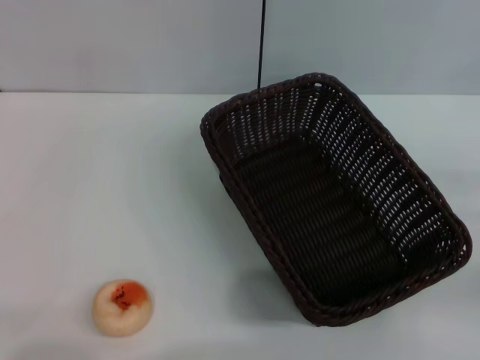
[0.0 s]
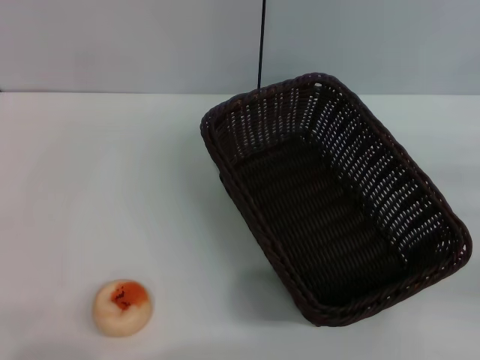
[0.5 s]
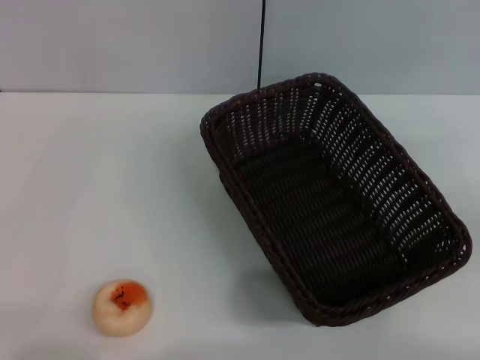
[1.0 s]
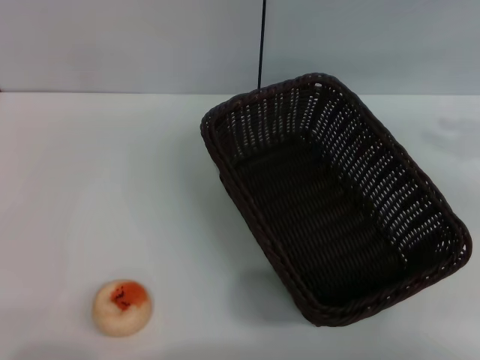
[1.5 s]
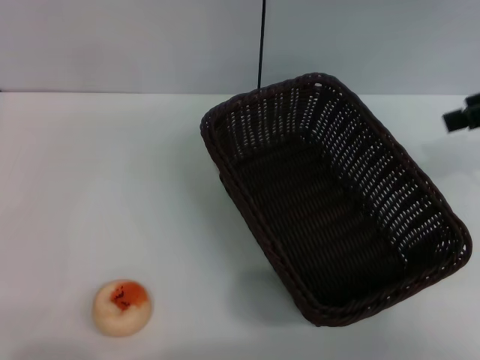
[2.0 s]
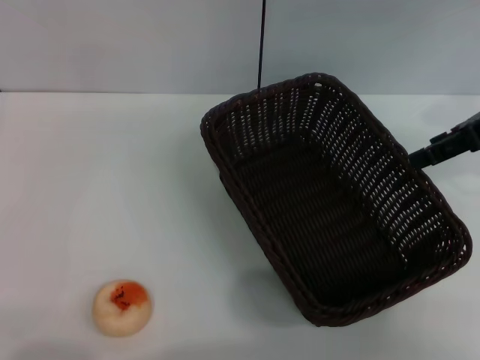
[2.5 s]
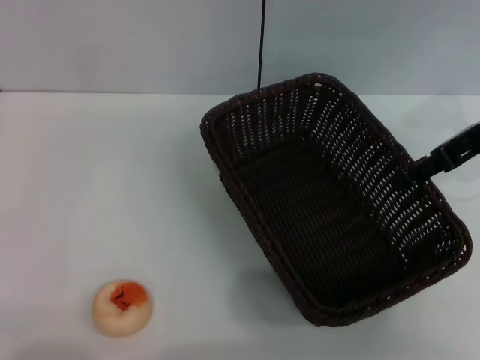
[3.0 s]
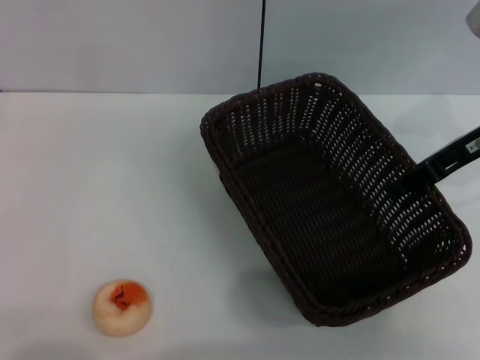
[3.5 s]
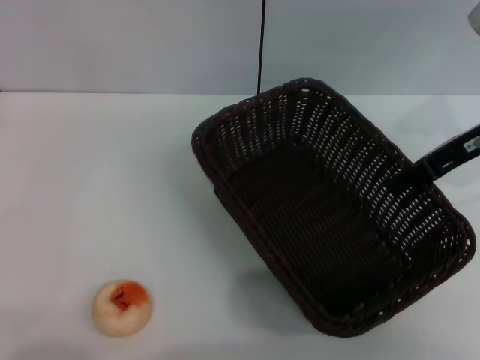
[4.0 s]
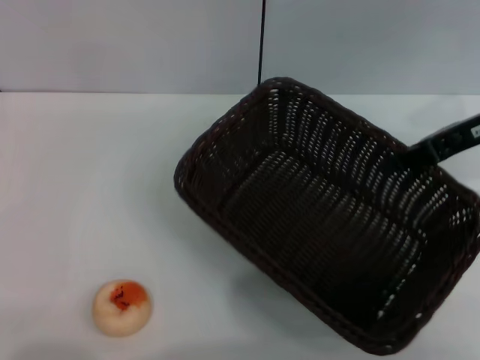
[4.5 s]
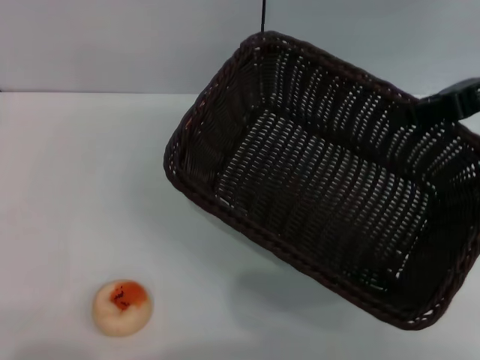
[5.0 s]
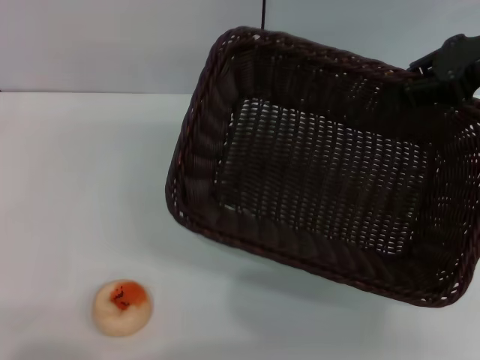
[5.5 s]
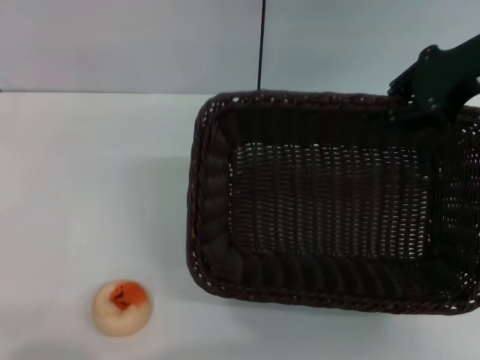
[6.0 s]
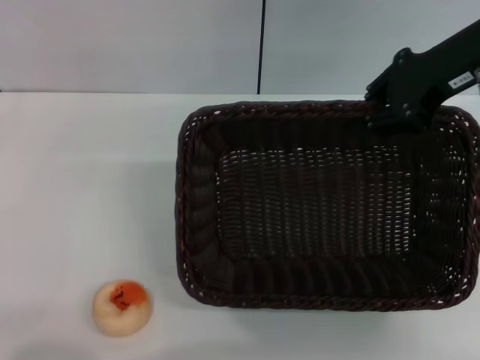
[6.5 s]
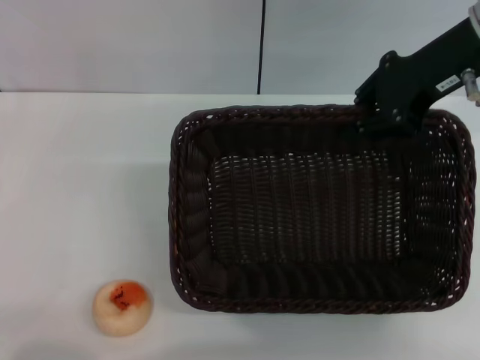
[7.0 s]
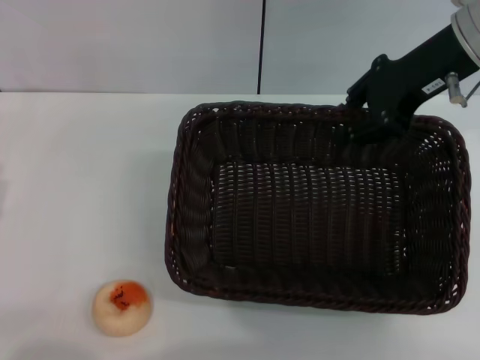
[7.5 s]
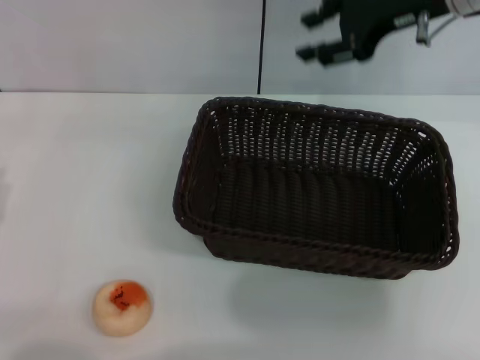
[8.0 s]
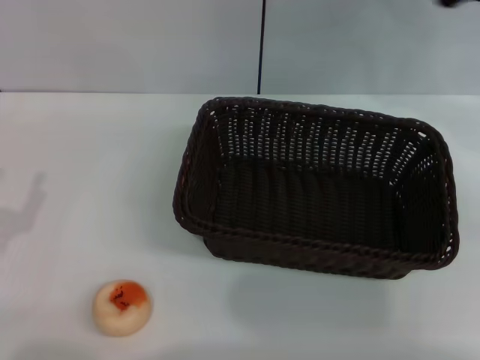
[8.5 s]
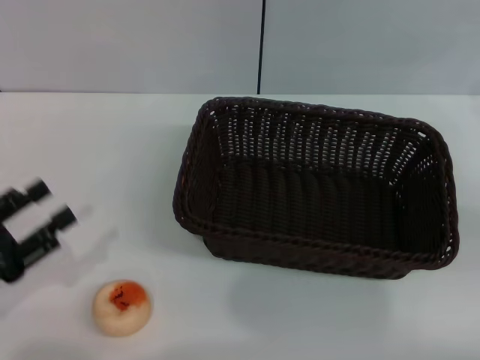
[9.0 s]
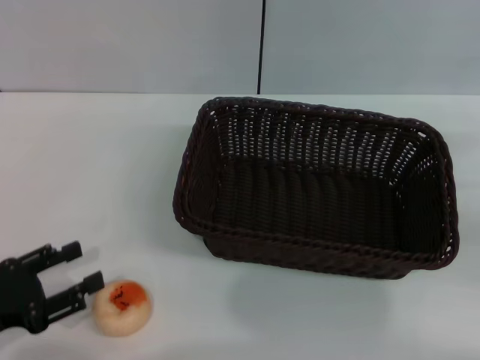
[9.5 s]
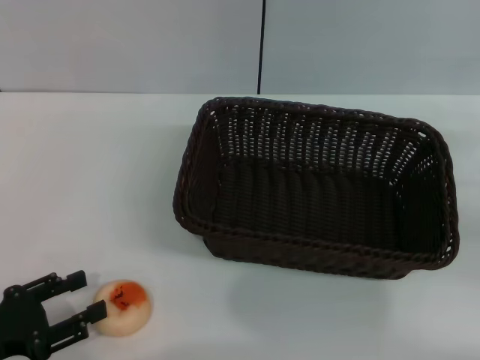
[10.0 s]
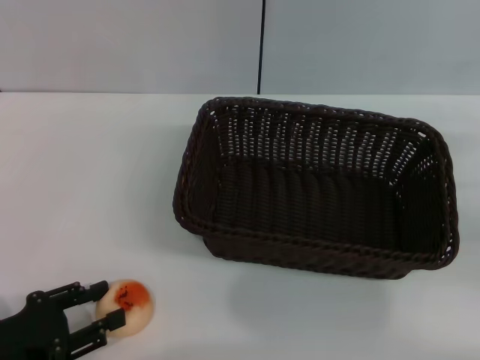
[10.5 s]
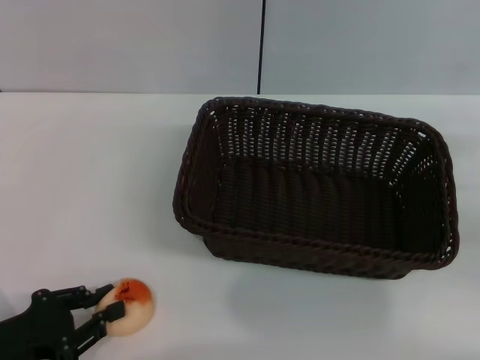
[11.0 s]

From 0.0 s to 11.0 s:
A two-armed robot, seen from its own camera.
Step, from 0.0 s to 7.5 s: Move the basket to the center of view with the right gripper.
From 0.0 s to 2.0 s: The right gripper is displaced upward and forward by about 20 cm.
From 2.0 s to 3.5 s: The right gripper travels downward and to the left by approximately 10 cm.
From 3.5 s to 5.5 s: The right gripper is displaced upward by roughly 5 cm, and closes.
From 5.5 s to 7.5 s: The right gripper shifts some 10 cm to the left.
From 7.5 s to 9.0 s: The right gripper moves to the right, downward and backward, roughly 25 cm.
From 9.0 s to 11.0 s: The left gripper ends up approximately 5 cm from where it was.

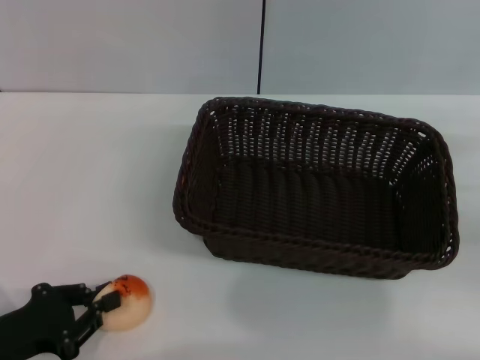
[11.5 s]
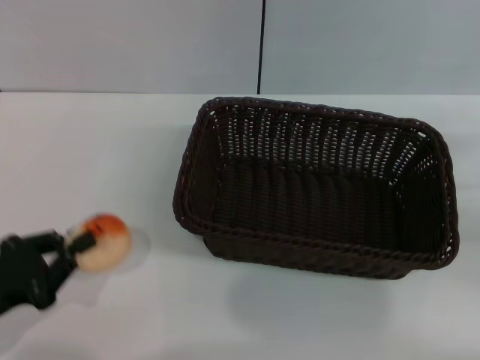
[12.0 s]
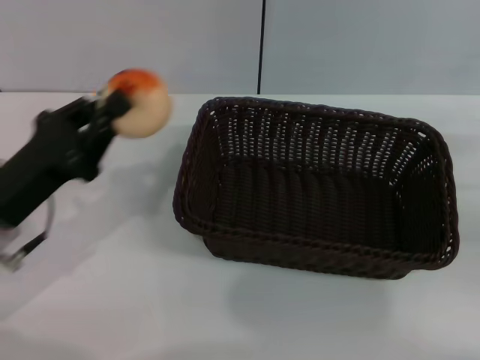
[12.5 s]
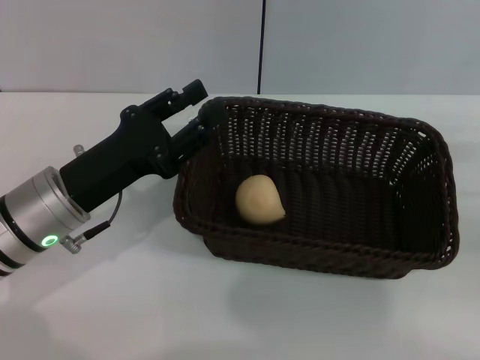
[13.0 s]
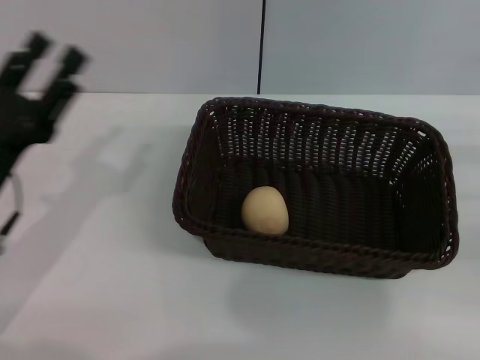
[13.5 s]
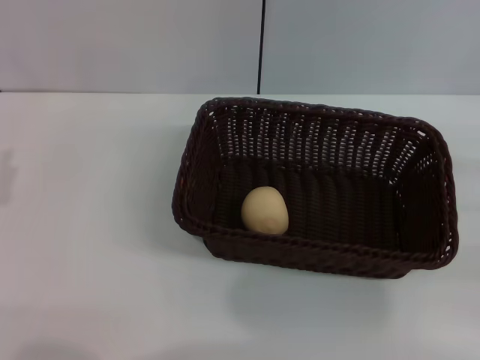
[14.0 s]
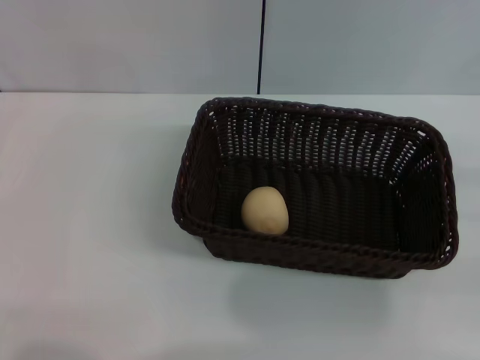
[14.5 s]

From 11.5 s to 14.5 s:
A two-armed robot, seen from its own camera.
Step, from 12.5 s to 13.0 s: Place the egg yolk pastry into the basket with the left gripper.
From 11.5 s to 13.0 s: The left gripper heads forward, to the right and upward, covering roughly 15 cm.
From 13.0 s to 14.5 s: The left gripper shifts approximately 15 cm to the left and backward, and opens its fingers.

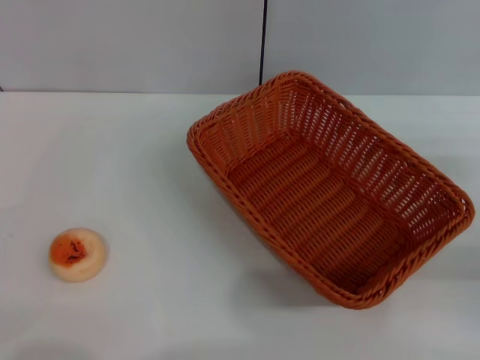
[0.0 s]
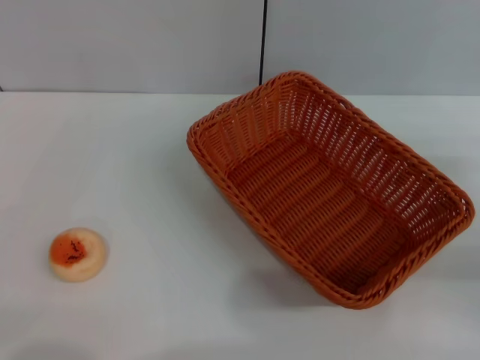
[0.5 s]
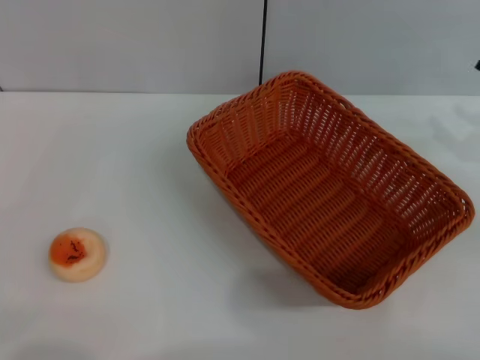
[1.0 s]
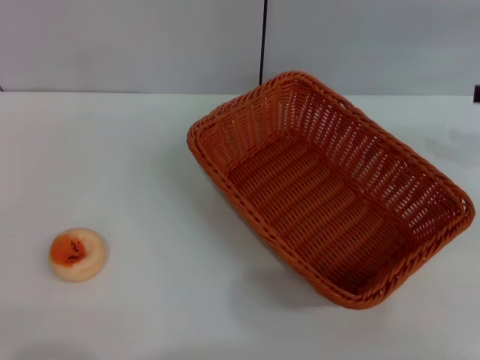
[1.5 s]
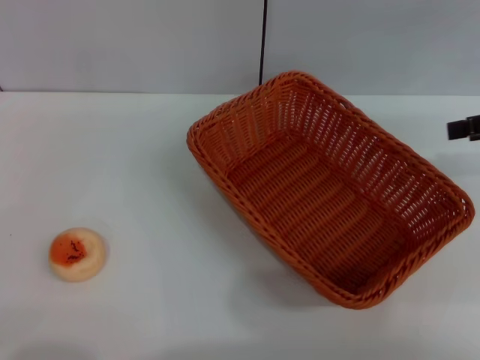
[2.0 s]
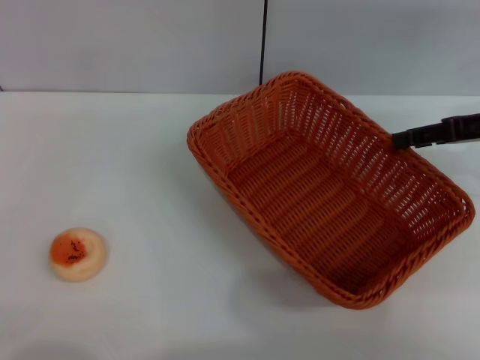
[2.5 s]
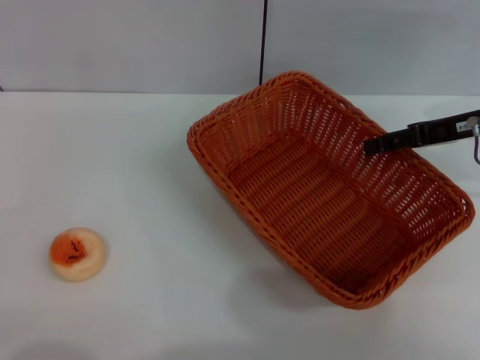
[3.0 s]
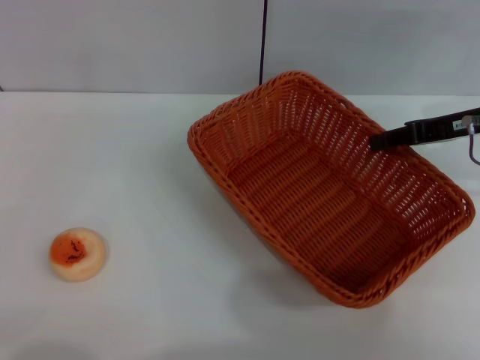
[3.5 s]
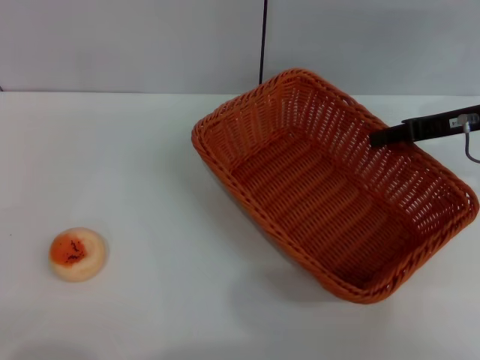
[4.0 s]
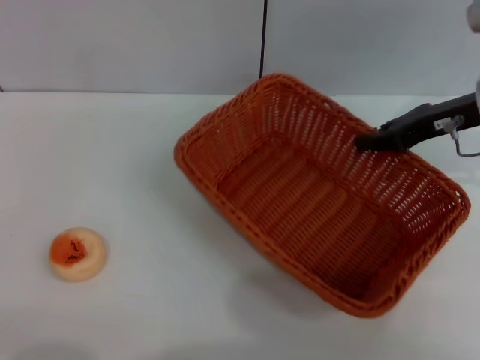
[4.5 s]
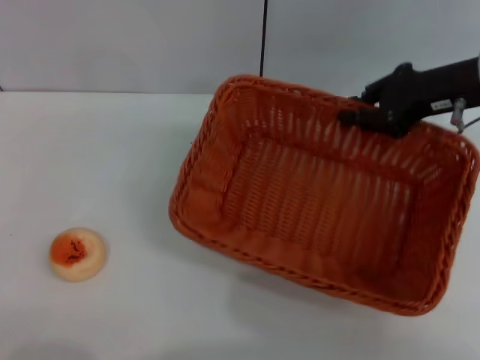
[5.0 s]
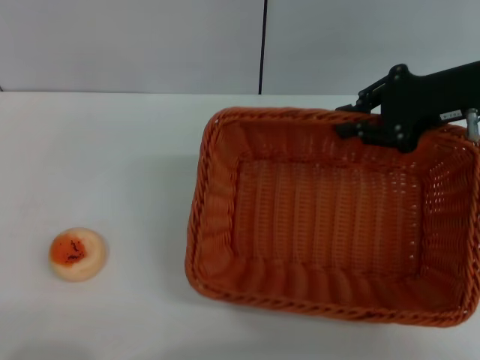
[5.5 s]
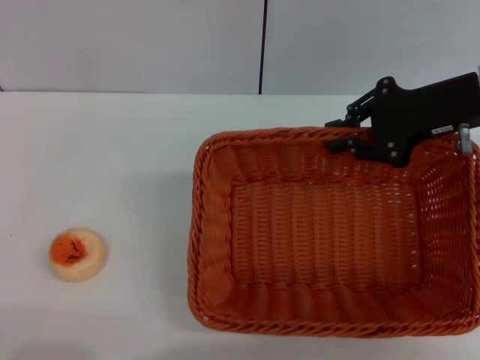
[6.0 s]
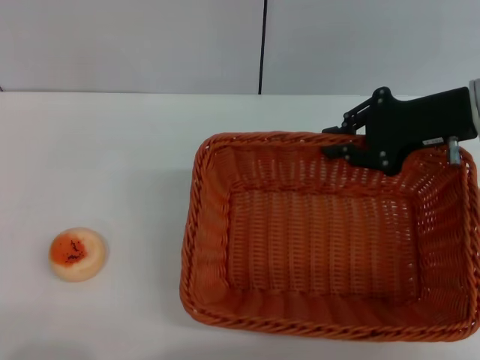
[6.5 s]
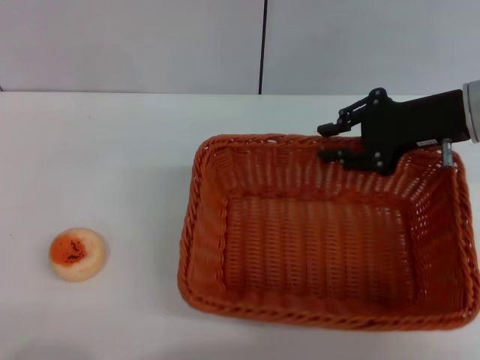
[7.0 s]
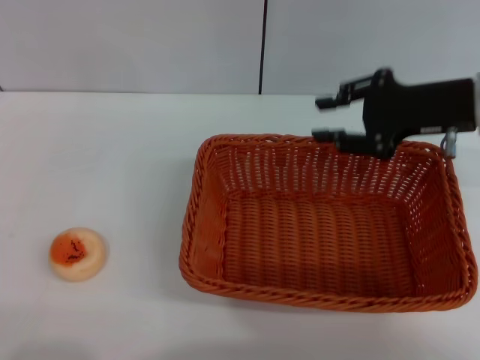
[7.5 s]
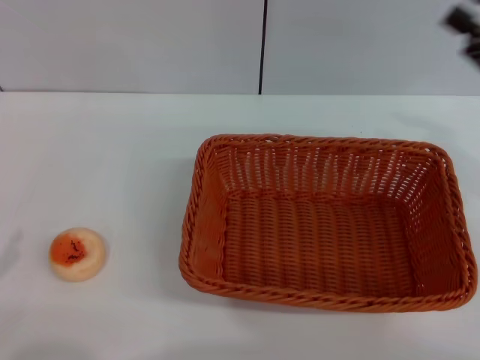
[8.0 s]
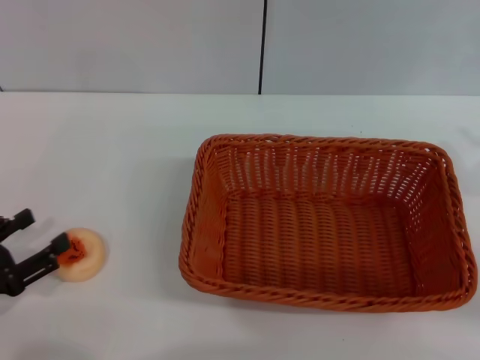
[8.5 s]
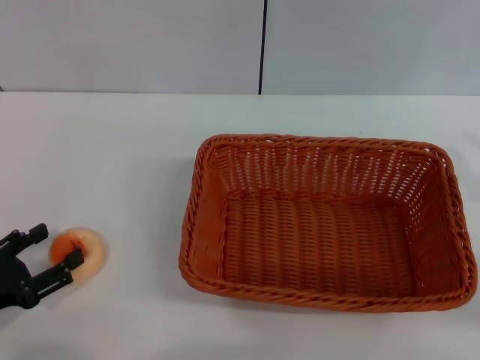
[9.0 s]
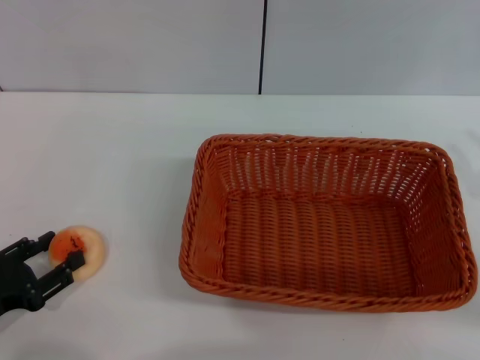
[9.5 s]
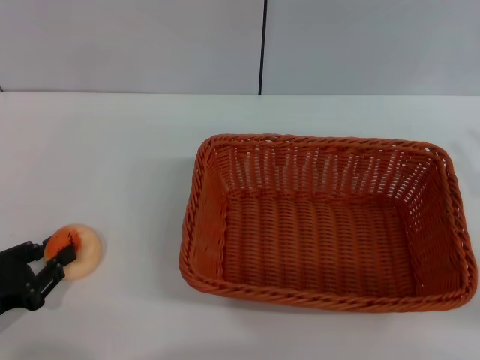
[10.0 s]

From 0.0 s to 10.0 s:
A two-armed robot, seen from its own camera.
Step, from 0.0 s to 7.0 s: Move the basket to the center of view with the right gripper.
From 0.0 s to 2.0 s: The right gripper is displaced upward and forward by roughly 15 cm.
From 2.0 s to 4.0 s: The right gripper goes some 10 cm to the left and downward, and closes.
From 6.0 s to 8.0 s: The right gripper shifts some 10 cm backward and to the right, and opens up.
From 8.0 s to 10.0 s: The right gripper goes about 5 cm backward; the left gripper shifts approximately 5 cm to the right, and closes up.

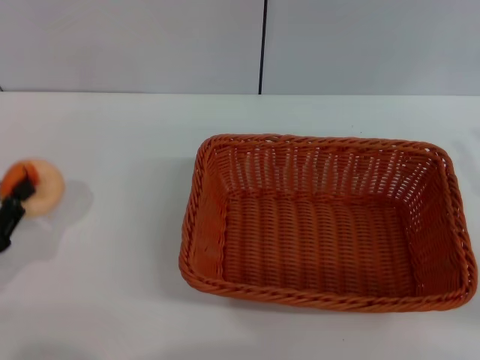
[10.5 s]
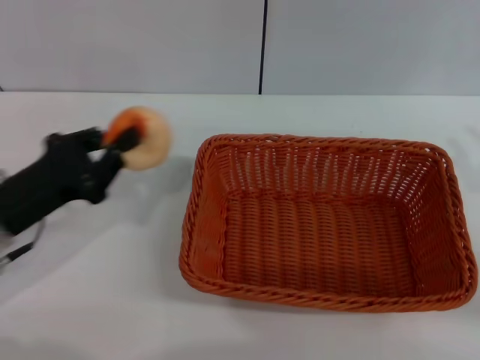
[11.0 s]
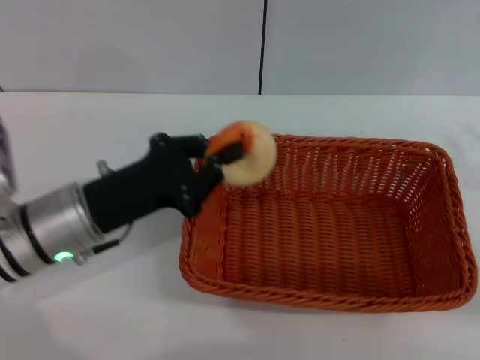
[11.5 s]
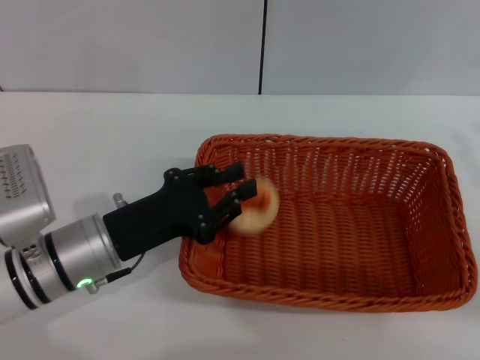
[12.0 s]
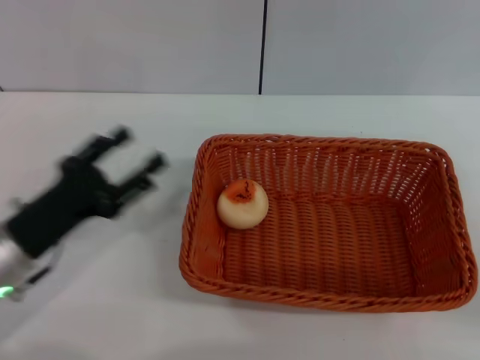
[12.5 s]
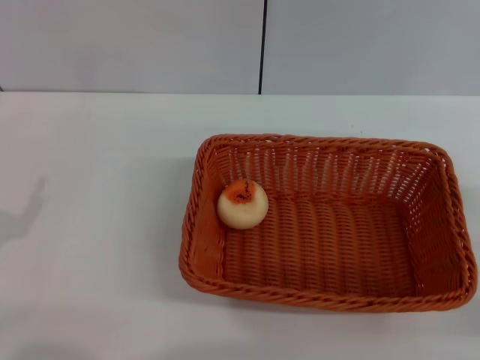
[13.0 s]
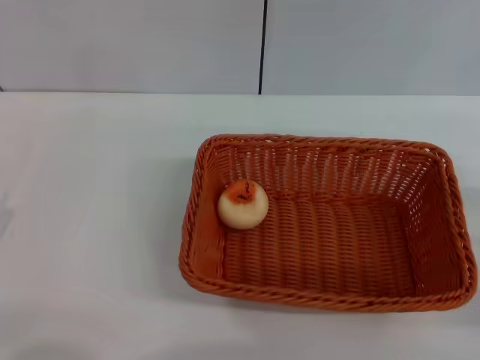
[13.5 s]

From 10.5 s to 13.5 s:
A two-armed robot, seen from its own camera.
Step, from 10.5 s to 12.0 s: Place the egg yolk pastry into the basket with the left gripper.
From 10.5 s to 12.0 s: The left gripper moves to the right and forward, approximately 20 cm.
From 12.0 s to 13.5 s: The left gripper moves to the left and backward, roughly 20 cm, and opens its fingers; the right gripper is displaced downward by about 5 cm, and opens its fingers.
